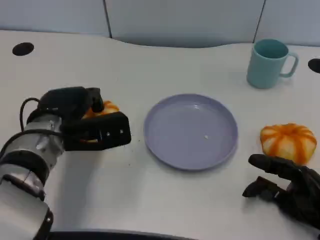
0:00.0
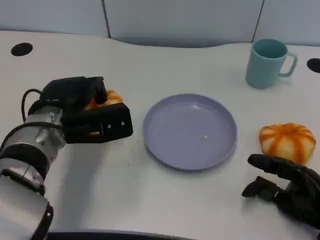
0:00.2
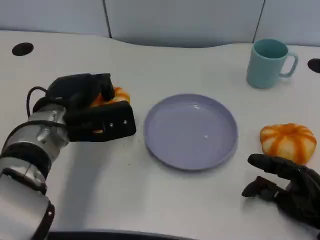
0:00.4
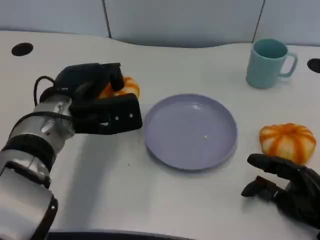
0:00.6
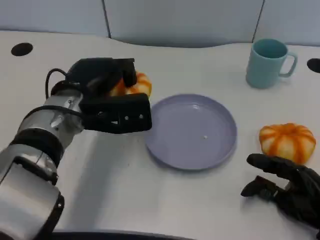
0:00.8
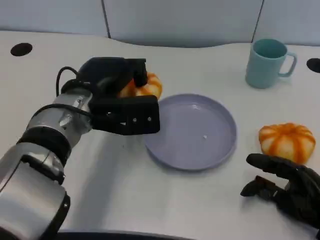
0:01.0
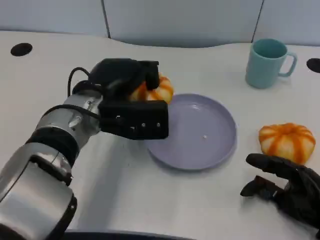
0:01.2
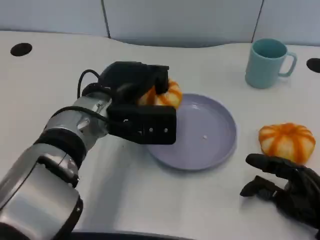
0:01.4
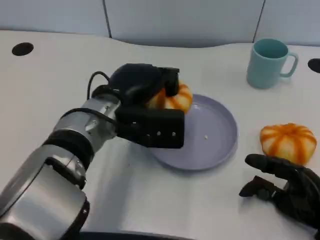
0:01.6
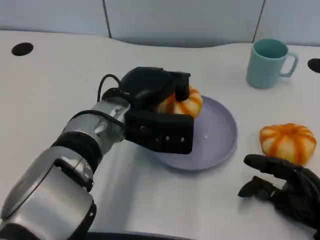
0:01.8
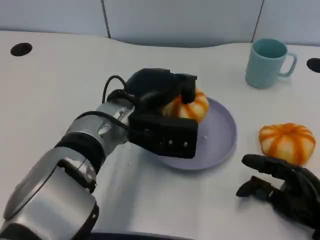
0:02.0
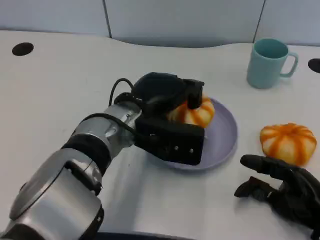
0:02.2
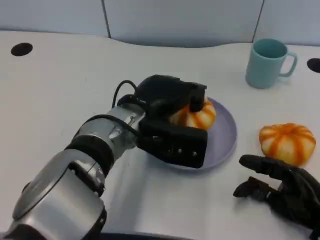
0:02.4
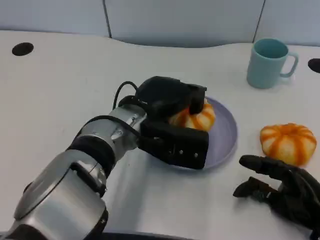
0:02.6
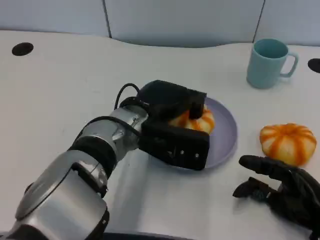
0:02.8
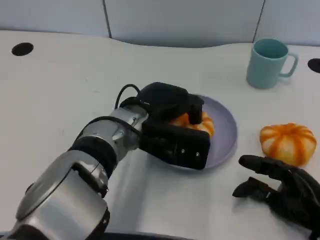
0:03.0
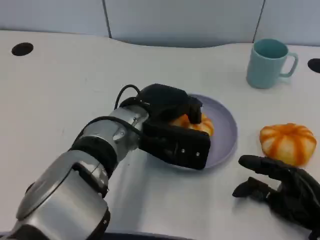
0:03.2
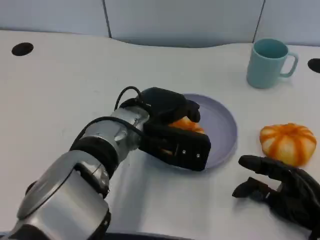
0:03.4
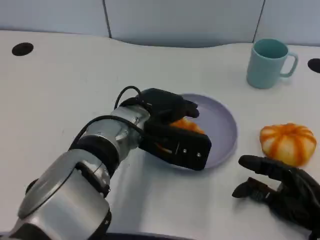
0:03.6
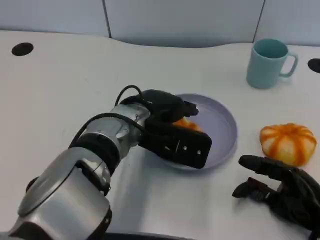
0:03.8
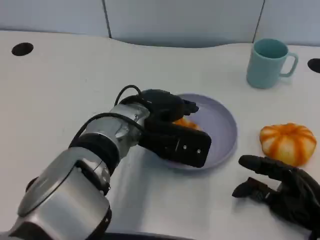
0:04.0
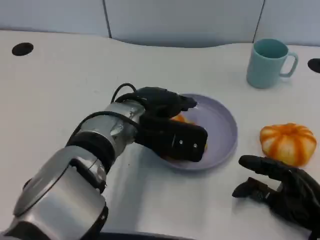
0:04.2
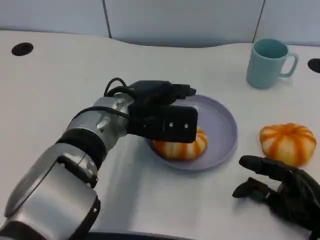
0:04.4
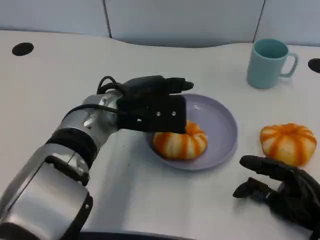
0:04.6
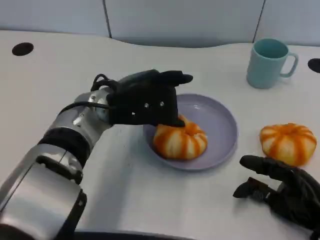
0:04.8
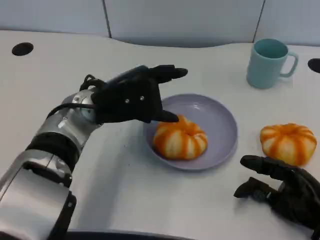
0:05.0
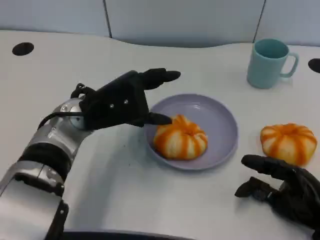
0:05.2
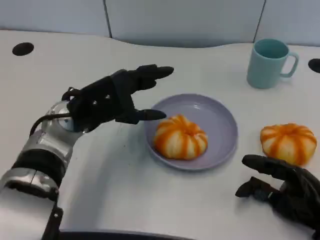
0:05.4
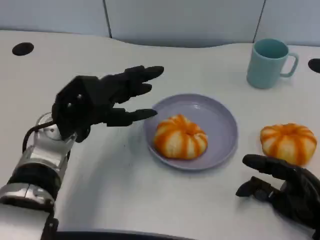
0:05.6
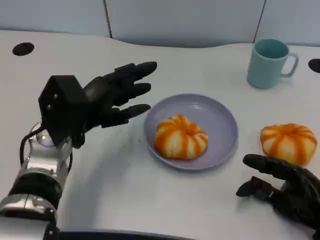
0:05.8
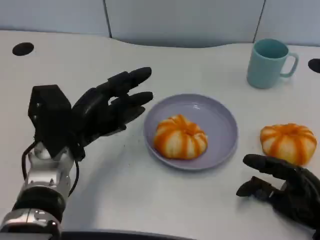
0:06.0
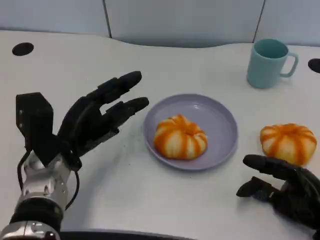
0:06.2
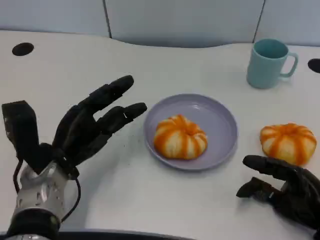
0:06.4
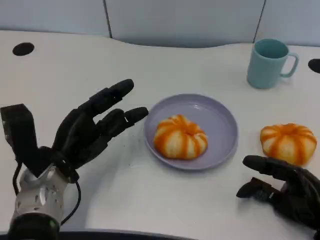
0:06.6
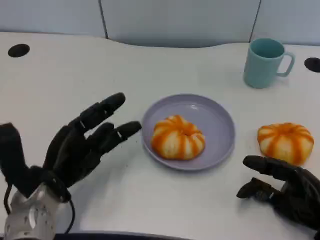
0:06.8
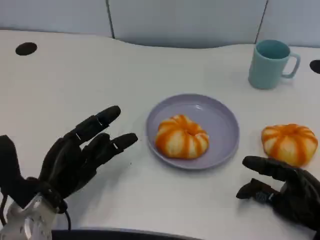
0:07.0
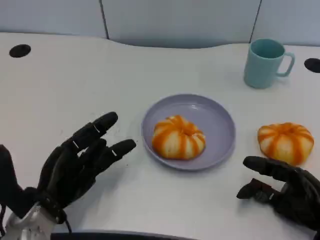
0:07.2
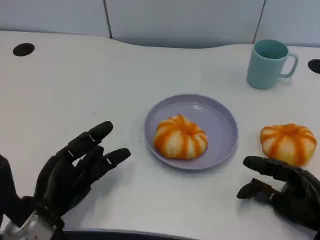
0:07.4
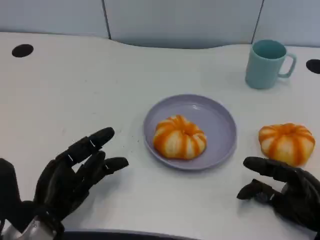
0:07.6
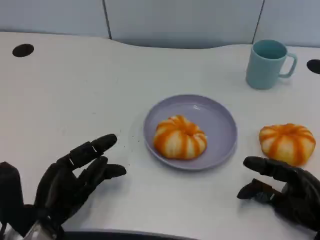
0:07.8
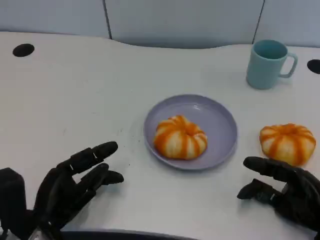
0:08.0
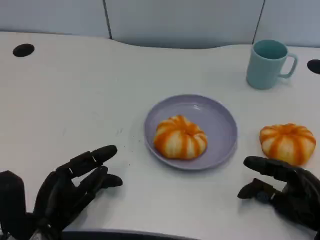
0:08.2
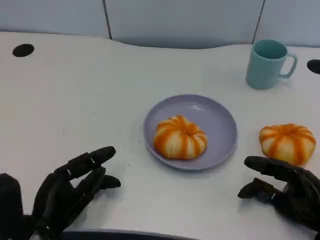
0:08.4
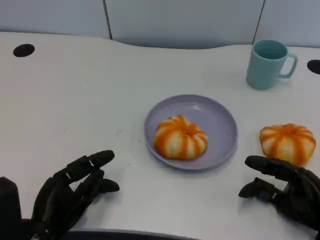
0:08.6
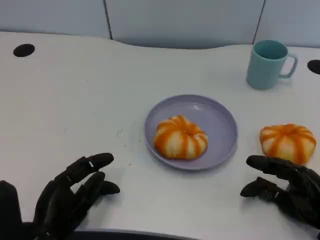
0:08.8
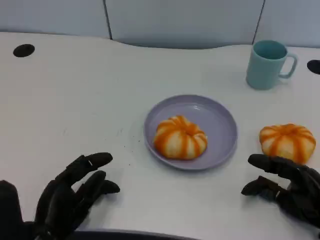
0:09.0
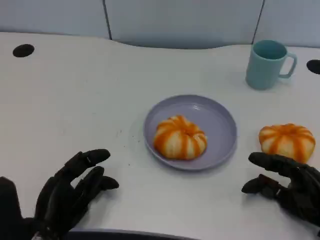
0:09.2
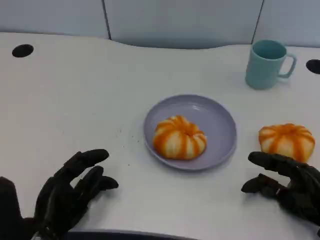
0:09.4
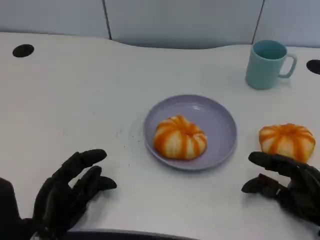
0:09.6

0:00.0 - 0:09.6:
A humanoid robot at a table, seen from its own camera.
Task of the whole recording: Grasp the bread from the table and place it into the plate.
0:00.0 - 0:01.6: The left hand is displaced to the right by some 10 cm.
0:03.2 - 0:04.8: The left hand shifts by some 5 cm.
0:04.8 - 0:06.4: The left hand heads to the left, downward and backward, covering some 15 cm.
0:06.4 - 0:08.0: The left hand travels backward by some 10 cm.
0:08.0 - 0:09.6: The hands move only a little.

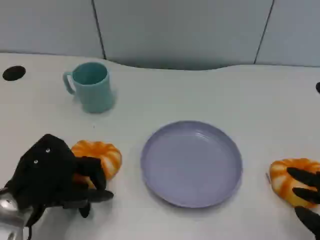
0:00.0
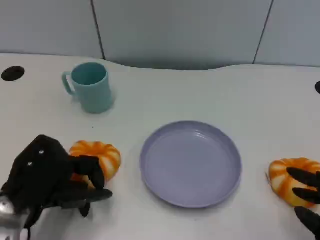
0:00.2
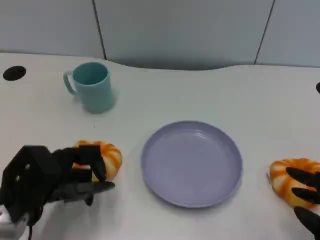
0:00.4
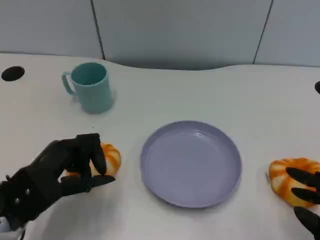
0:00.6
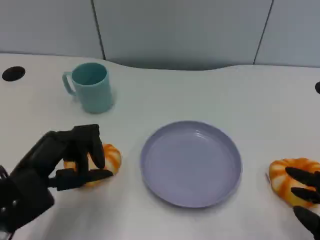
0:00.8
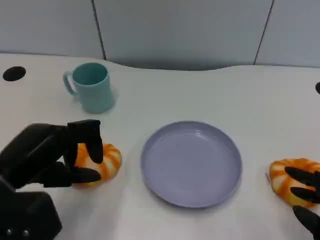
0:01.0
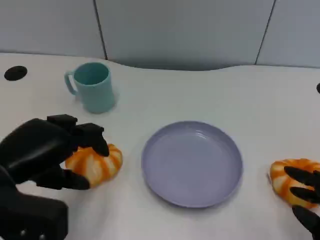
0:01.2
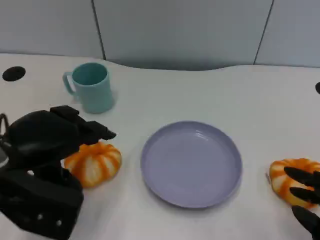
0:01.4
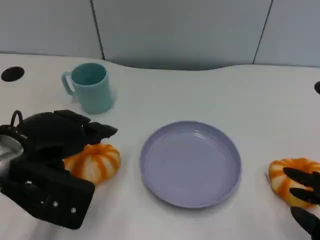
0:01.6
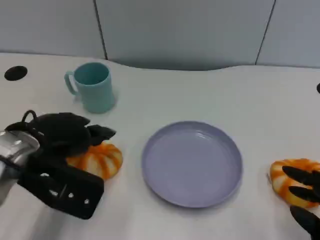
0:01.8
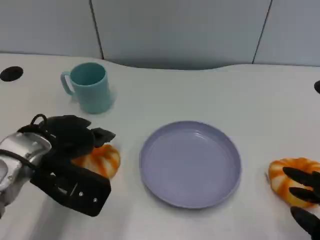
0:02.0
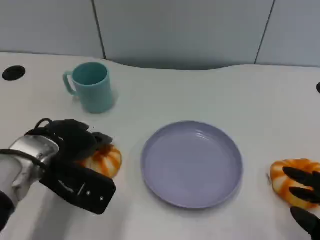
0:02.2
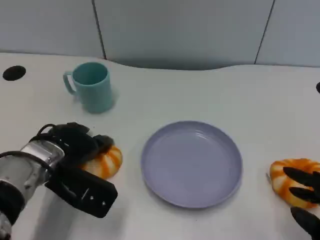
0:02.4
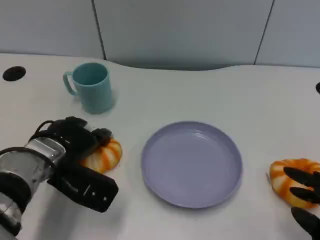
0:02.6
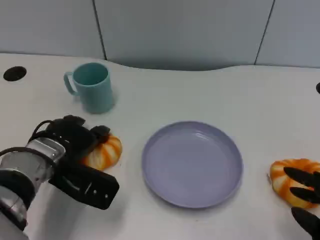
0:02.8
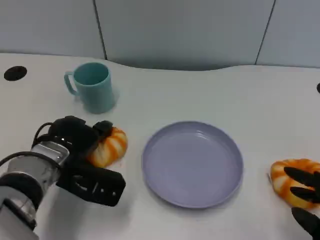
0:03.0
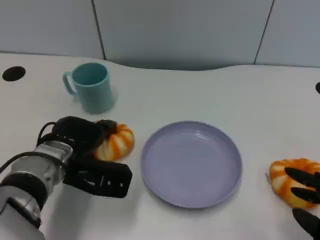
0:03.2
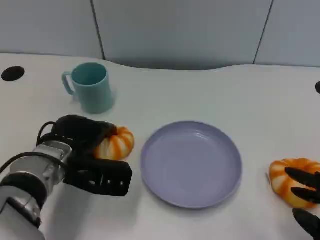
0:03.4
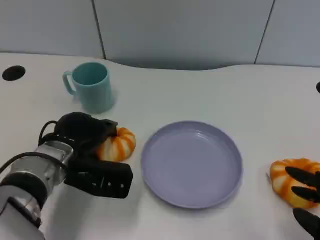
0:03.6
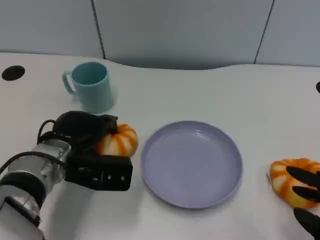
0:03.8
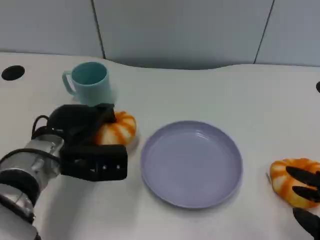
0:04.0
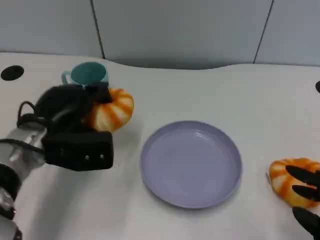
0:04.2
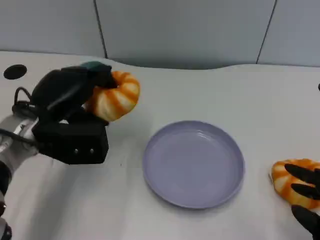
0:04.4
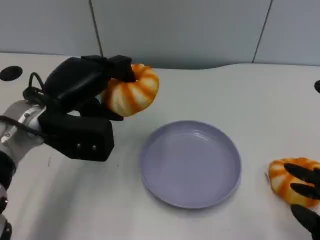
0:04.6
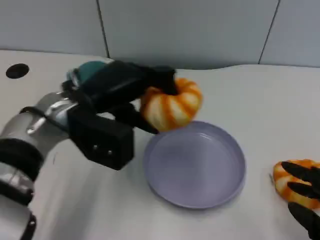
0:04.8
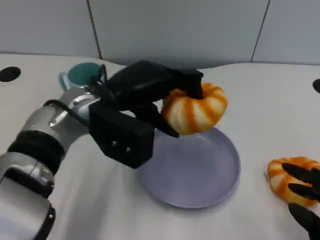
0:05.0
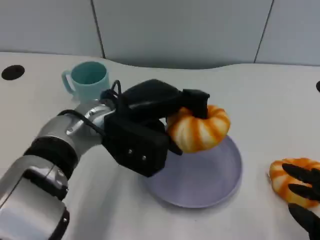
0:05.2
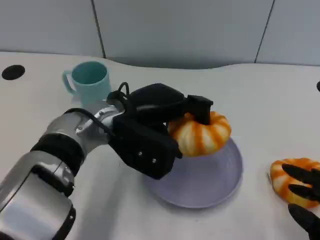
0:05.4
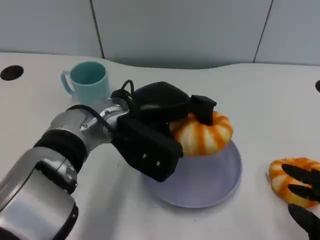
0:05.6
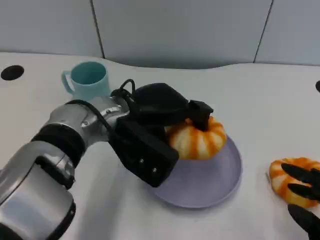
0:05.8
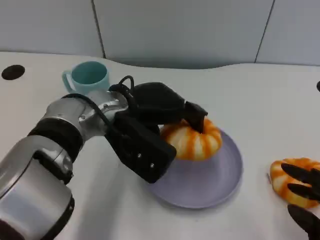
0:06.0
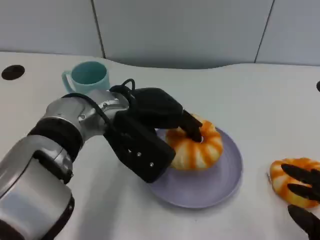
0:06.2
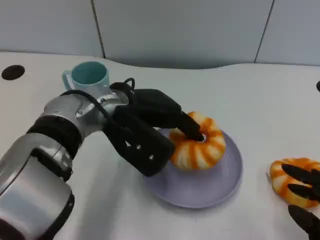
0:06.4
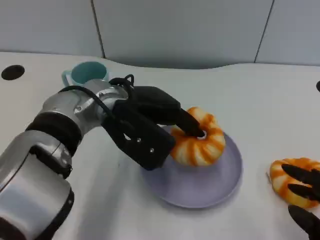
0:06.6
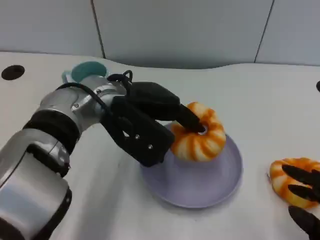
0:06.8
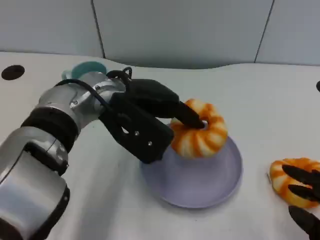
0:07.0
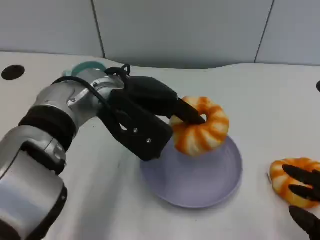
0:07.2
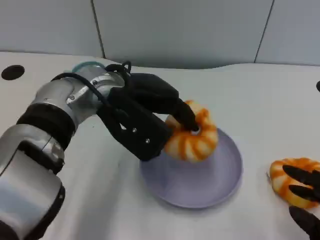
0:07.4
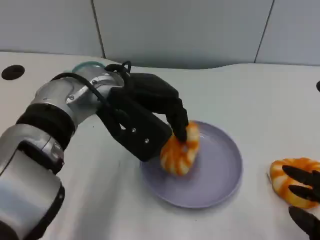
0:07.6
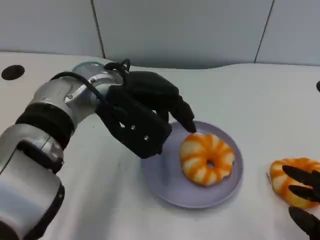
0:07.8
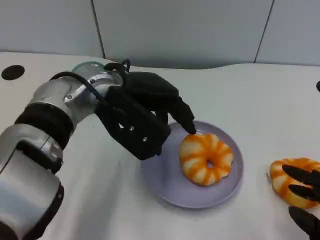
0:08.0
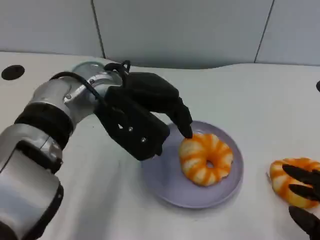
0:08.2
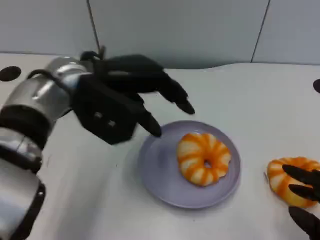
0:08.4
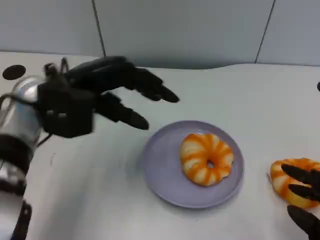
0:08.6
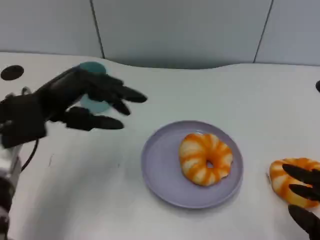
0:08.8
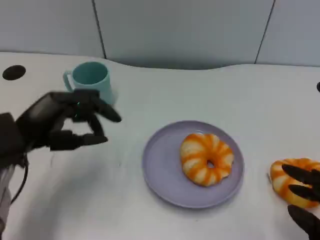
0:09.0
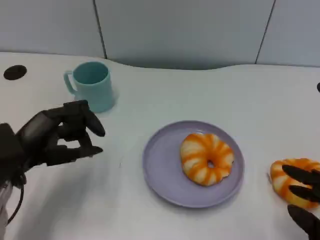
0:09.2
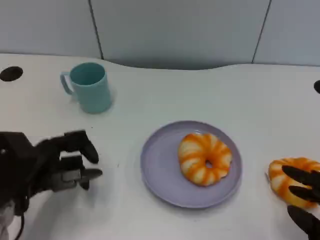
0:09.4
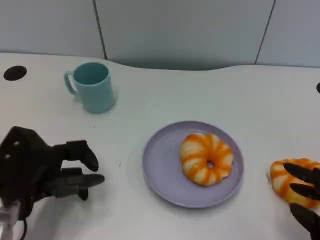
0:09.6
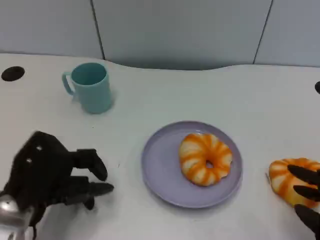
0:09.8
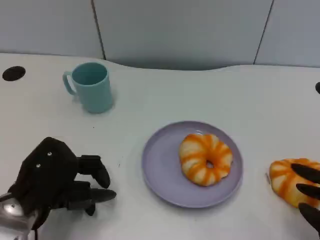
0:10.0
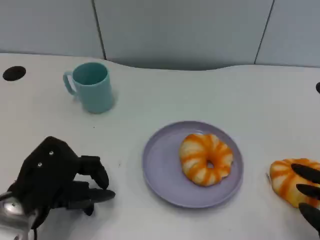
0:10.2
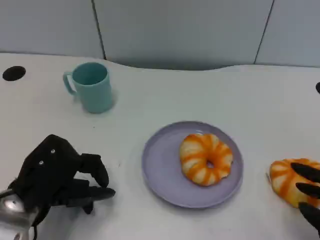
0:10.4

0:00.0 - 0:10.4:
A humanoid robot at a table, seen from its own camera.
Task of the whole recording: Grasp the bread from the table and place it into the plate.
0:00.0 - 0:01.4: The left hand goes roughly 10 cm upward.
0:01.4 - 0:03.0: The left hand is displaced downward, forward and to the right by some 15 cm.
0:03.0 - 0:04.4: The left hand moves upward, roughly 5 cm.
0:04.4 - 0:06.0: The left hand shifts approximately 10 cm to the right.
0:06.0 - 0:07.4: The hands move only a little.
0:07.4 - 0:09.0: The left hand goes some 15 cm to the left and downward.
0:09.0 - 0:10.4: The left hand ends up about 5 cm from where it was.

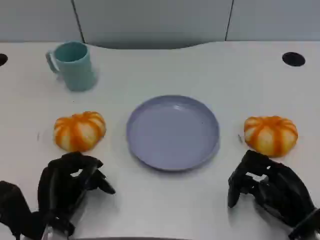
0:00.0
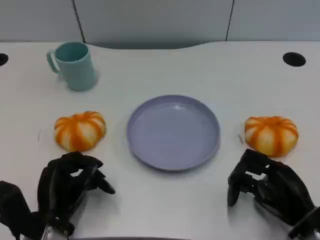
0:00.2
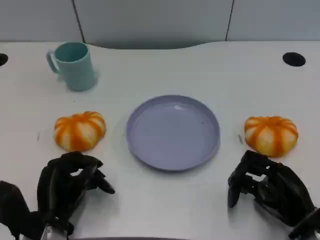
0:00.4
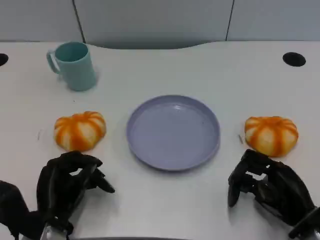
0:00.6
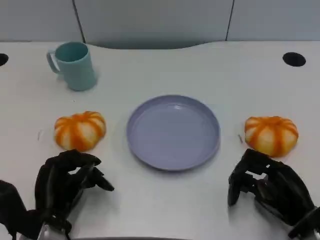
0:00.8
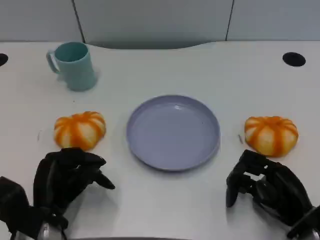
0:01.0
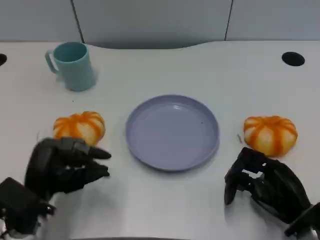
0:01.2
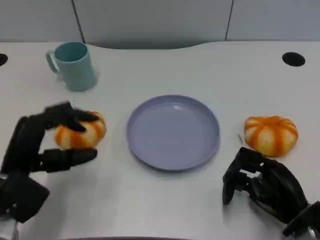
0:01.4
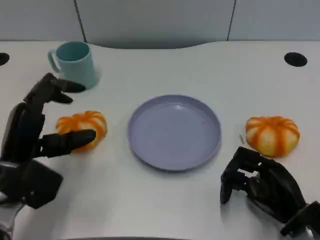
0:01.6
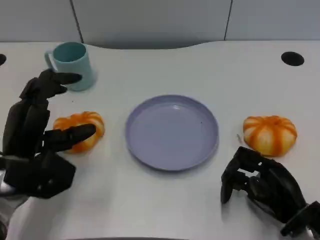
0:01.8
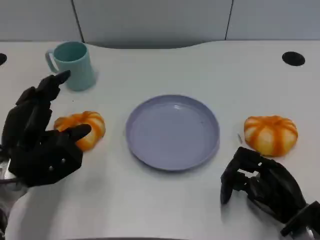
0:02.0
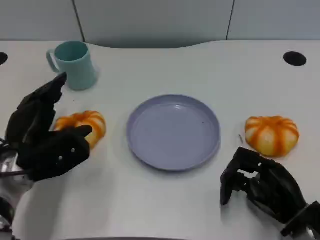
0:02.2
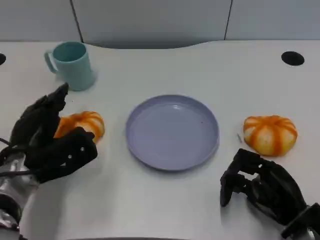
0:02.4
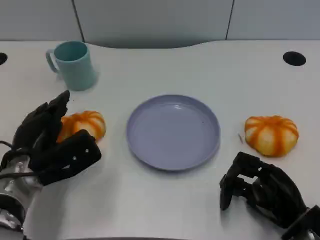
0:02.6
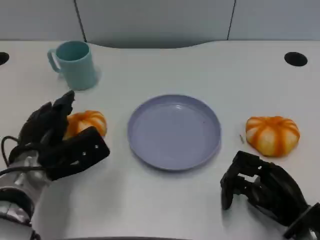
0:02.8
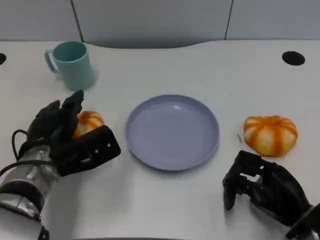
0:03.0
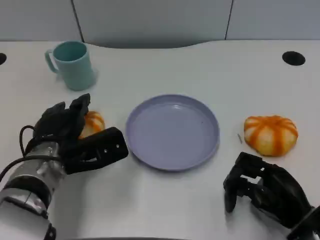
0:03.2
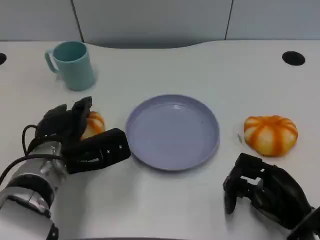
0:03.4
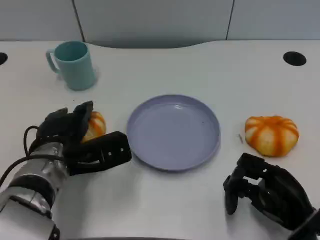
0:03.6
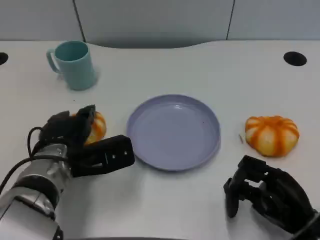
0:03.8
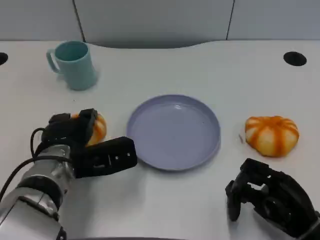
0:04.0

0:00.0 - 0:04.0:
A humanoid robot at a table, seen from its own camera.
Task of the whole recording: Grasp the bread from the table and place it into the plate.
0:00.0 - 0:01.4: The left hand heads upward, covering some 10 cm.
0:01.4 - 0:02.6: The left hand moves about 5 cm.
